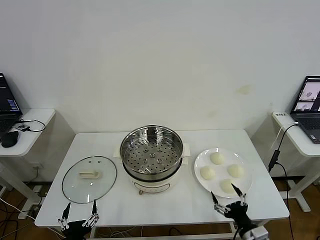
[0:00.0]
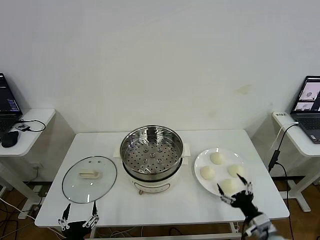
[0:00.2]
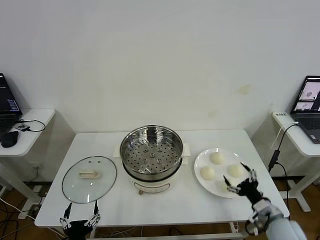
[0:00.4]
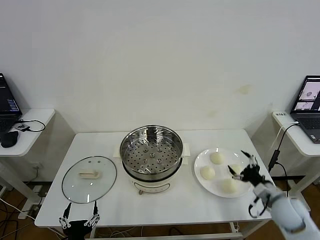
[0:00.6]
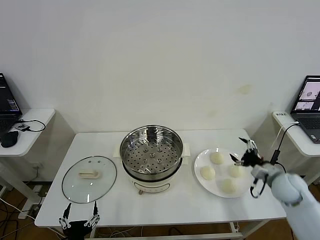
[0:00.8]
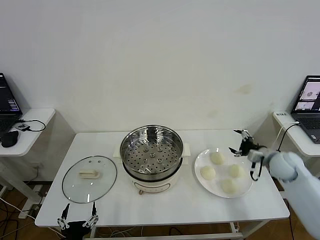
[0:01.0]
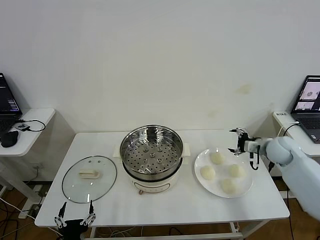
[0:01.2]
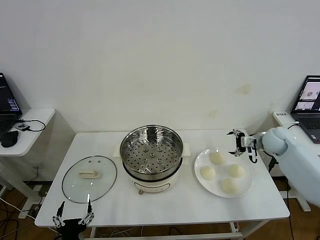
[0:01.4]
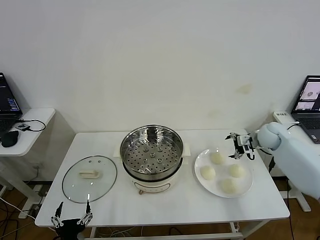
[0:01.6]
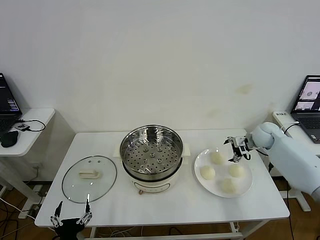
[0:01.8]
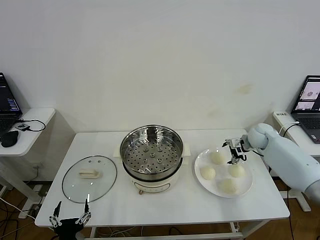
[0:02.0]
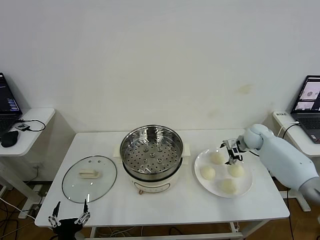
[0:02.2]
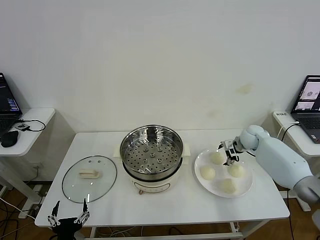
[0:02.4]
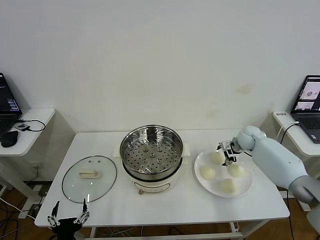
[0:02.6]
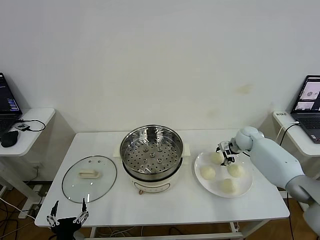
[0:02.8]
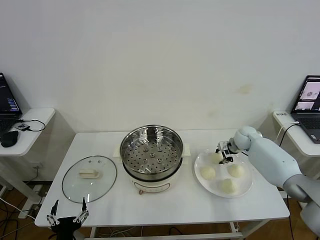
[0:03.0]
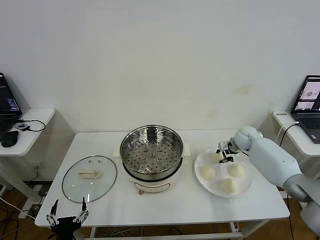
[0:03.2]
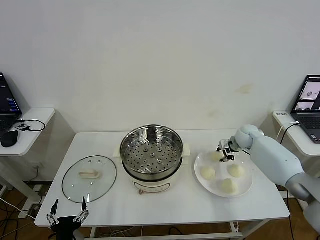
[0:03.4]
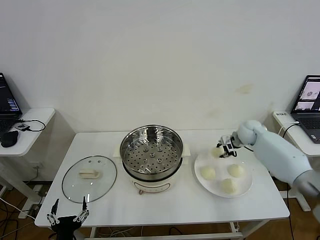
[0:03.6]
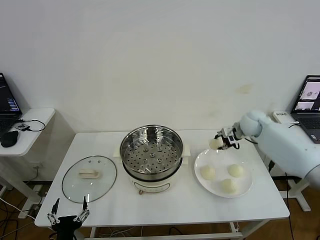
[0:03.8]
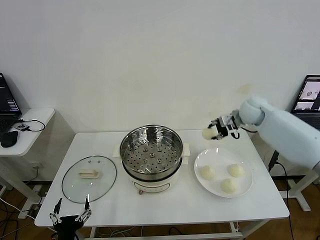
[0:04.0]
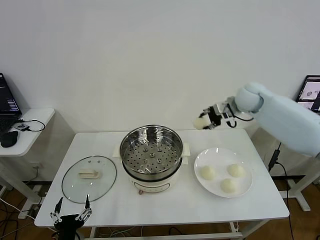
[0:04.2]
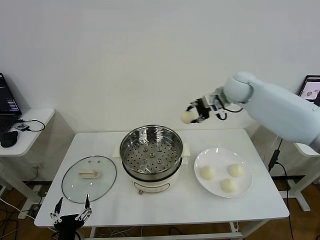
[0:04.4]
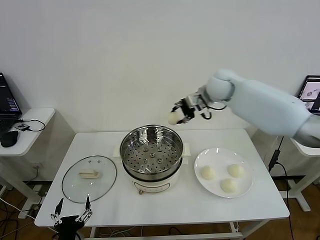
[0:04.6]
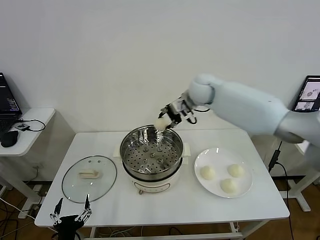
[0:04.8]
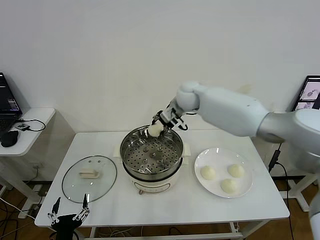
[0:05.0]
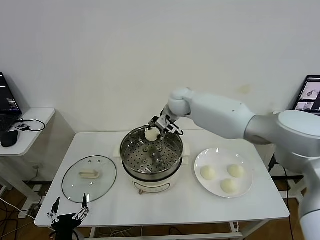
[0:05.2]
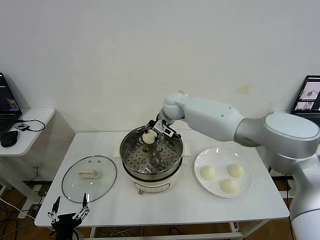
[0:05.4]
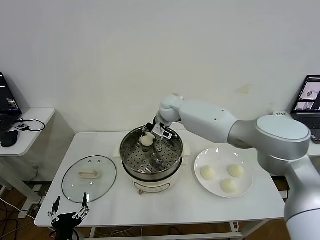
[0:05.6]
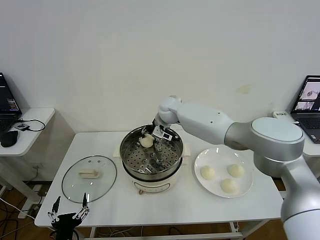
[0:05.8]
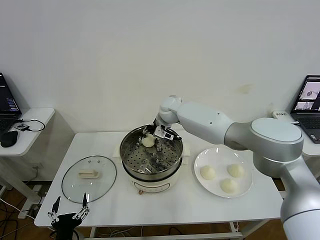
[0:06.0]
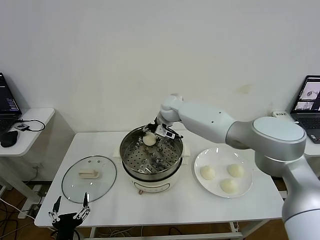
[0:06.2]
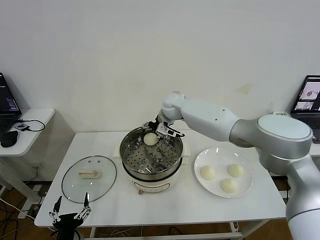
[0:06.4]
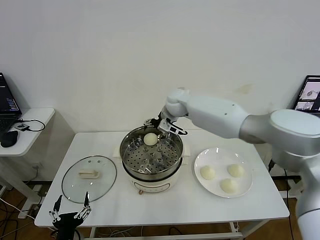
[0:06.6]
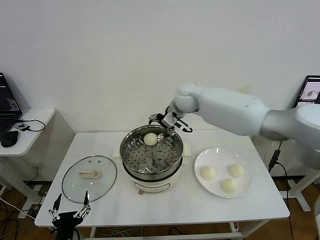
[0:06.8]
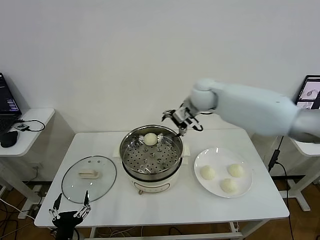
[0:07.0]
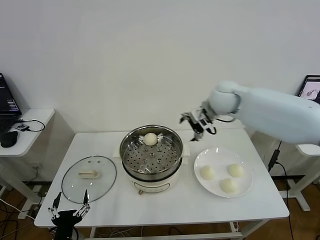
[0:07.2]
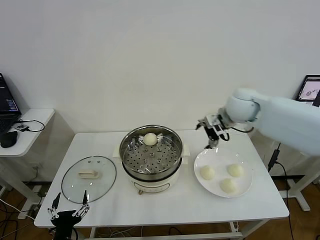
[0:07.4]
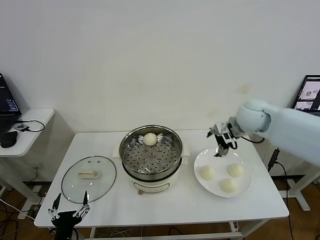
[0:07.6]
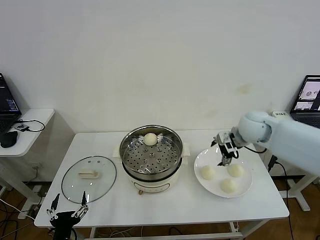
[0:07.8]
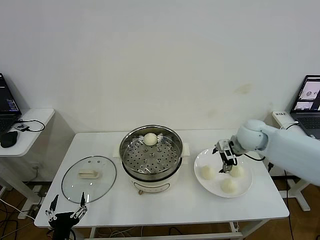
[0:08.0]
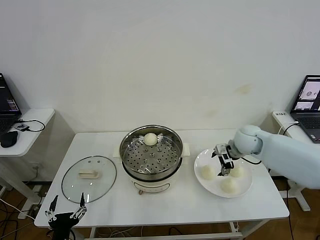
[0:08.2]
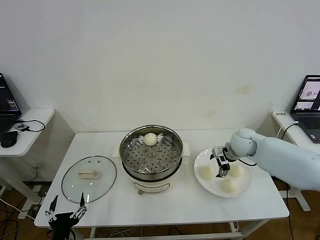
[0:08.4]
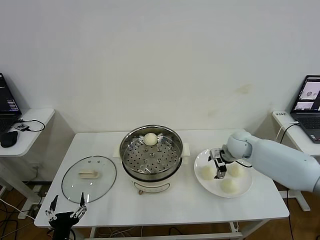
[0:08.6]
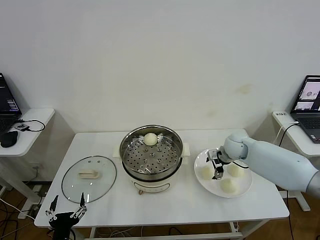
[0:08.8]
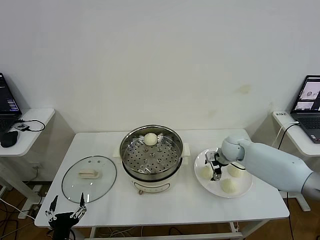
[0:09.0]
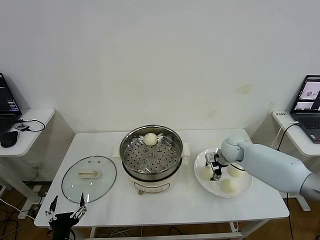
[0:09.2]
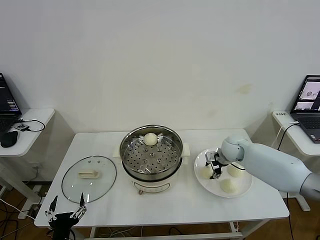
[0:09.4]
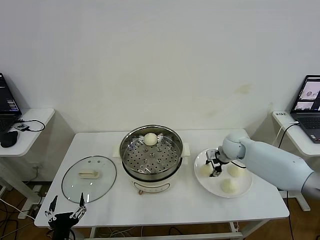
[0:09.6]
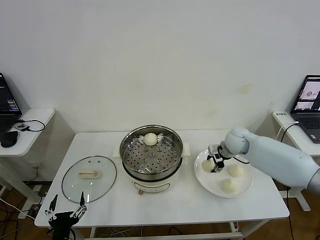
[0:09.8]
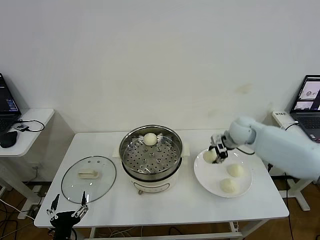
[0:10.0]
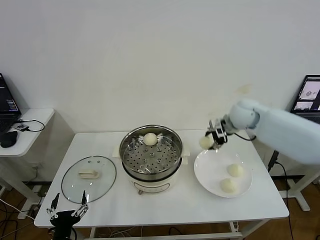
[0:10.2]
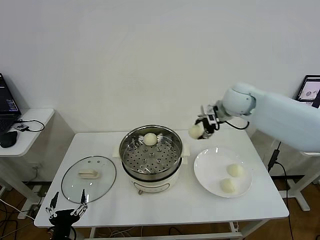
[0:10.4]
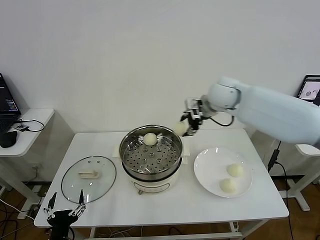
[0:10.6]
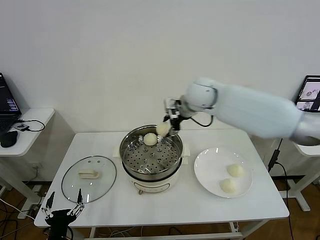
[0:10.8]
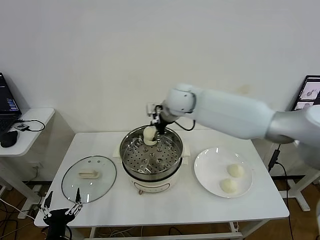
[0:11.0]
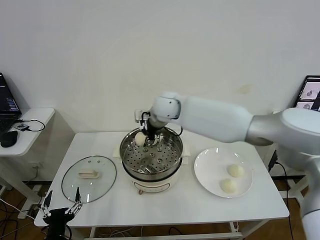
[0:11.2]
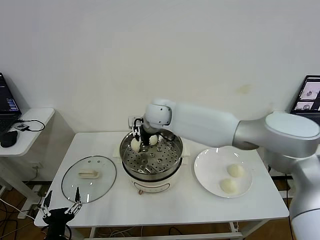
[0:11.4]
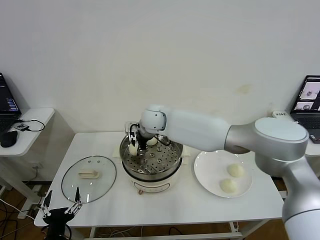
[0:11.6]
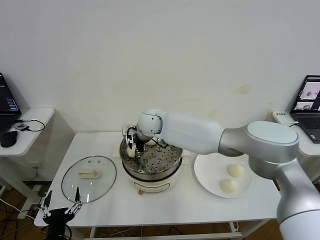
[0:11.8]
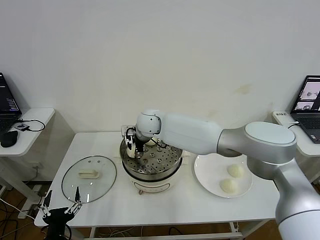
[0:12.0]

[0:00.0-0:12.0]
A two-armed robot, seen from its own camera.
Step, 0:00.0 to 0:03.0: Grasp the baozi in the plate with right gripper.
Step, 0:03.2 to 0:06.2: Place the baozi on the steamer with right gripper.
Step, 0:06.4 to 0:09.4: Grasp the baozi in the plate with right gripper.
Step, 0:09.6 to 0:12.0: Place the baozi on the steamer with right gripper.
0:01.6 to 0:03.0: The right gripper is displaced downward and to the left by approximately 10 cm, and closes.
0:03.0 to 0:04.4: The right gripper heads upward and to the left, covering some 30 cm.
0:04.4 to 0:06.0: The right gripper is displaced to the left and downward by about 20 cm.
0:06.0 to 0:07.6: The right gripper heads to the right and backward, covering about 25 cm, and opens up.
0:07.6 to 0:09.0: The right gripper shifts approximately 15 cm downward.
0:09.0 to 0:10.4: The right gripper moves upward, approximately 20 cm, and closes.
0:10.4 to 0:12.0: The right gripper shifts about 30 cm to the left and downward, and opens.

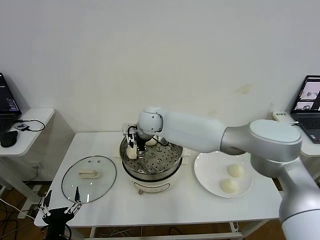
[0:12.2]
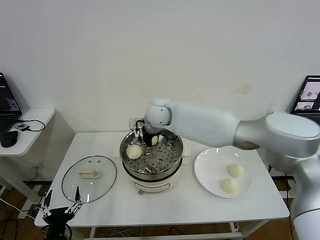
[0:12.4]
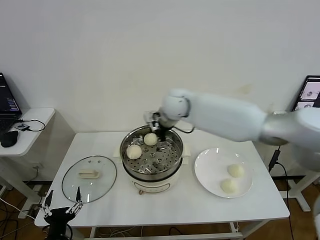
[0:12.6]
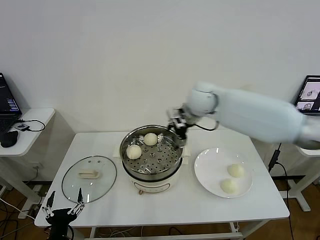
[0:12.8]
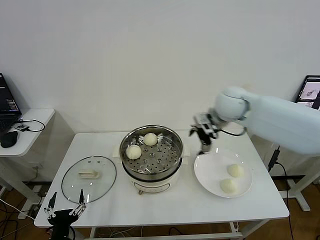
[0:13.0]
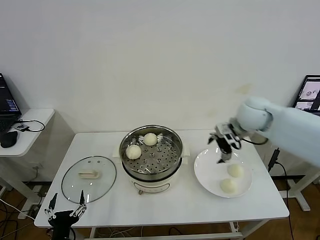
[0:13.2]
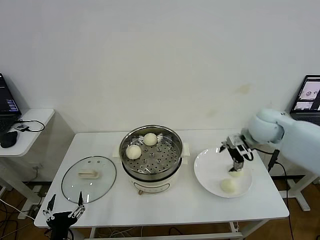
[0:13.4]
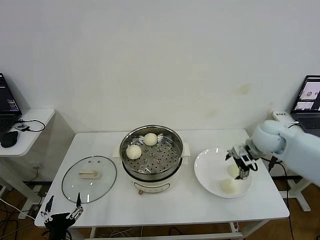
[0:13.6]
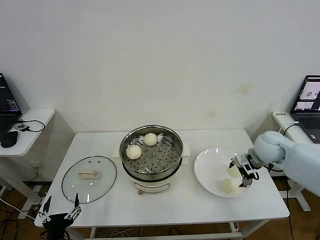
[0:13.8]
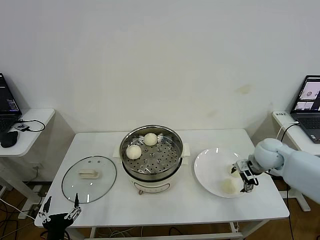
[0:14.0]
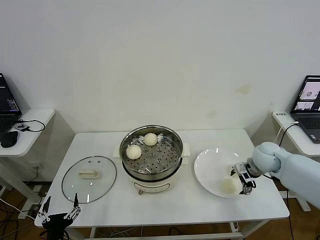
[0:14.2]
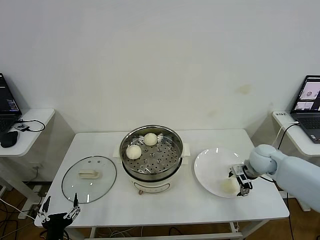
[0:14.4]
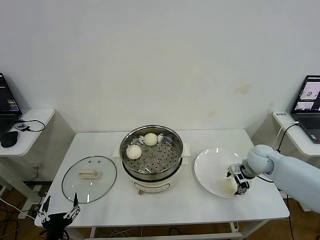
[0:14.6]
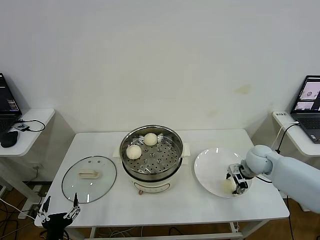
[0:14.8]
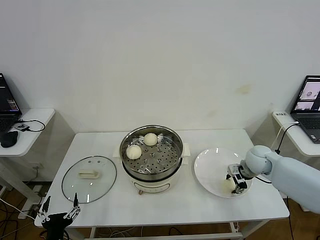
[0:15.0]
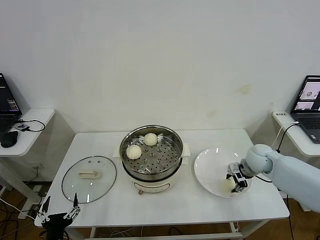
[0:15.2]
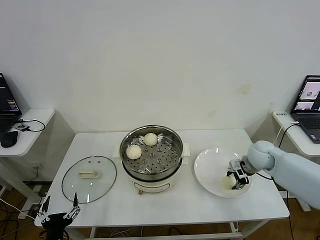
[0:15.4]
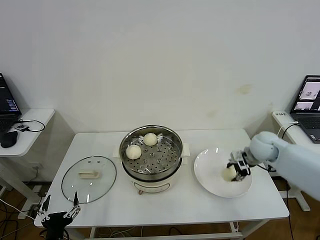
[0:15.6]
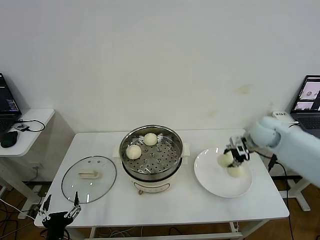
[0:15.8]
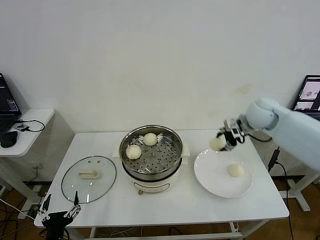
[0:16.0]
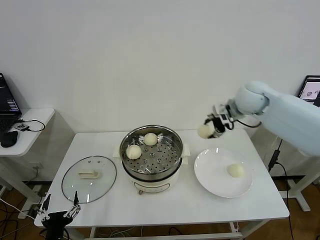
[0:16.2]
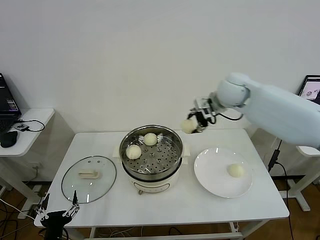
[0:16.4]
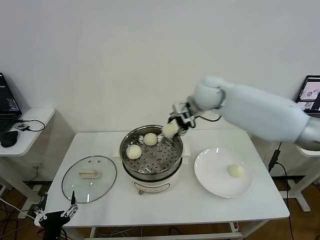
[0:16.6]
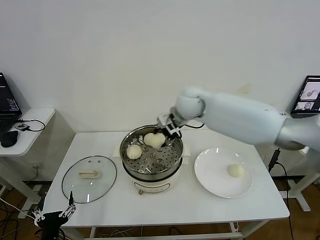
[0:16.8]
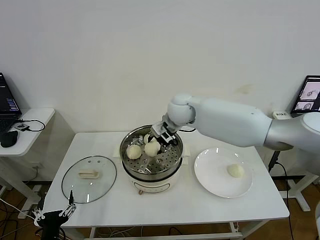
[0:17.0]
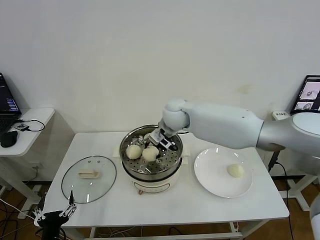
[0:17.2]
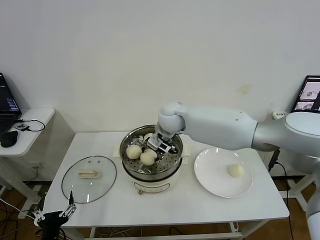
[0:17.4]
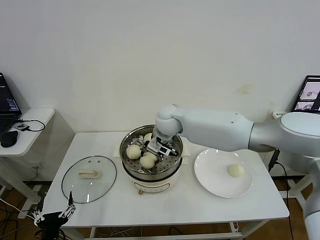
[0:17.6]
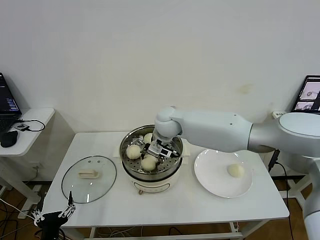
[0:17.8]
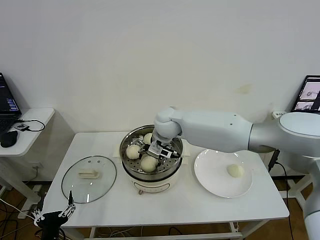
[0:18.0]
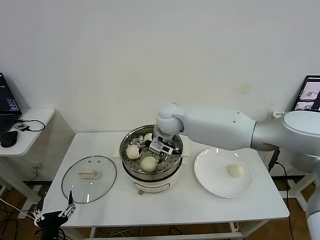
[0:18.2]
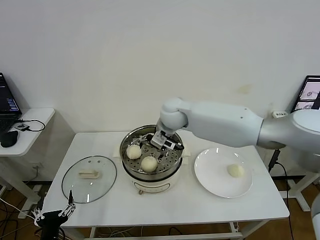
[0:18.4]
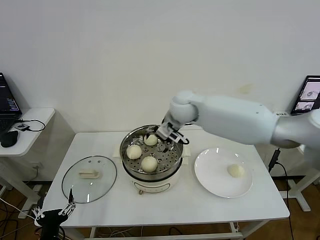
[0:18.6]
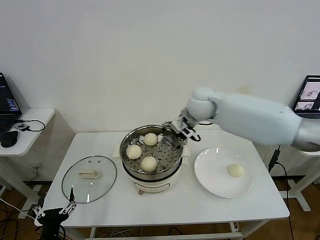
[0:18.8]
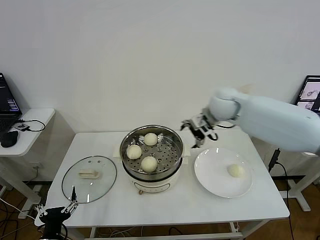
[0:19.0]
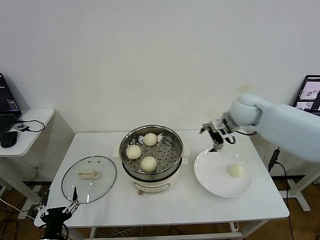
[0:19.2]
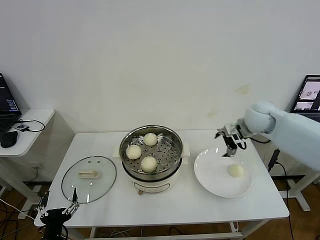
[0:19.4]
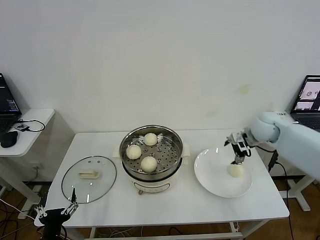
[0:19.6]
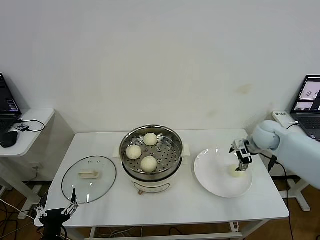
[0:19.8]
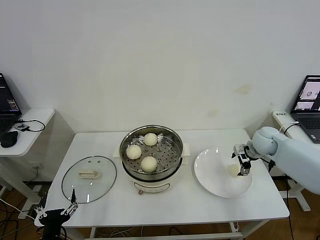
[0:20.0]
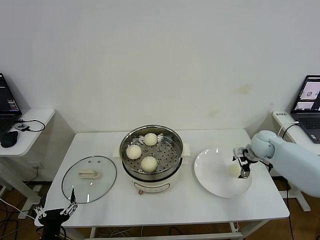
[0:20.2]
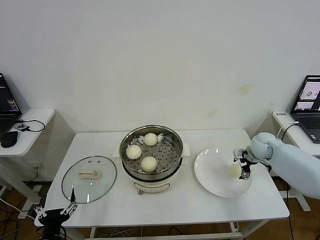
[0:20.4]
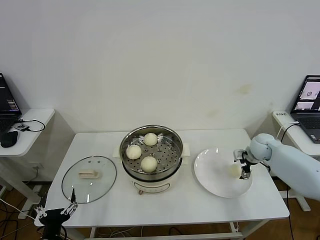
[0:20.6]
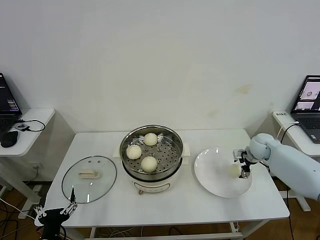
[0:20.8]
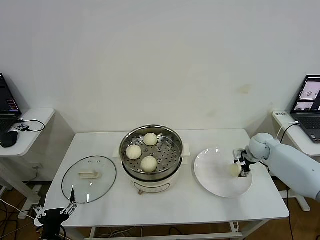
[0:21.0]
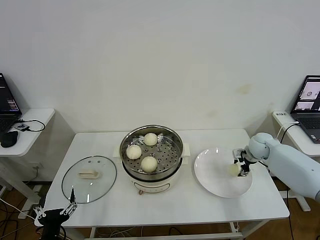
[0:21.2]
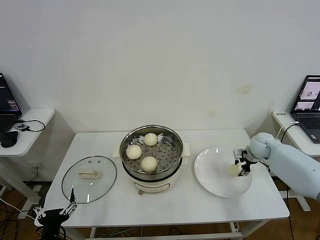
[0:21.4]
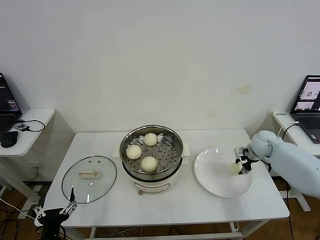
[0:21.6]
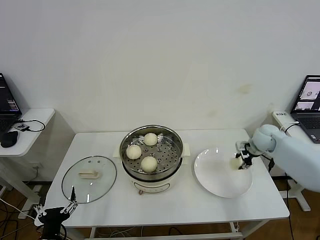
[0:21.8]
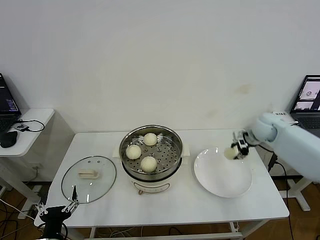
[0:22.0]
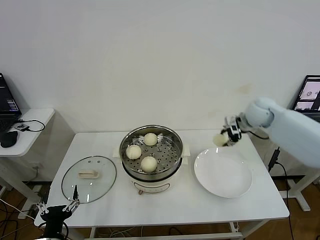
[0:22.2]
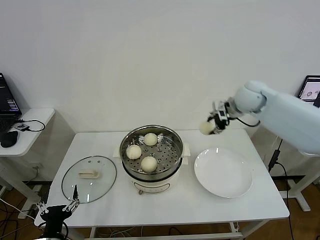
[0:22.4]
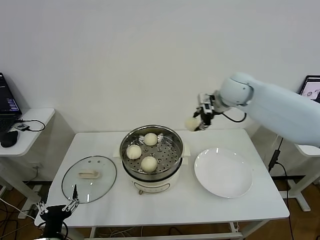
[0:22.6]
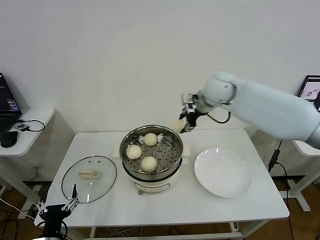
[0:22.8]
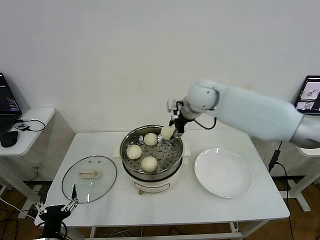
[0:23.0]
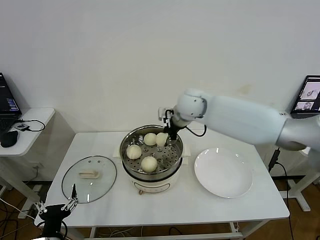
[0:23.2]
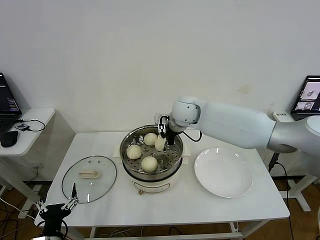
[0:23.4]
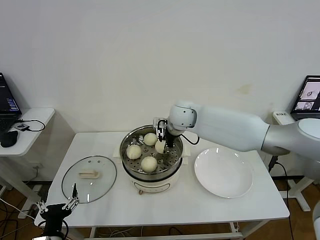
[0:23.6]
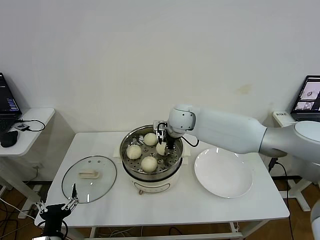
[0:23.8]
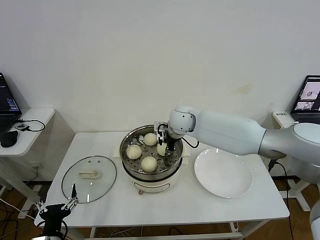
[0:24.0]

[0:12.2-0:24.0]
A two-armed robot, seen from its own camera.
Step, 0:12.2 to 0:14.8: Grasp the baozi in the plate with right gripper.
Step, 0:15.0 to 0:18.0: Place the baozi on the steamer with right gripper.
Step, 0:18.2 to 0:21.2: Grasp the baozi in the plate with right gripper.
0:12.2 to 0:13.6: The right gripper goes approximately 35 cm to the right.
0:13.6 to 0:15.2: The right gripper goes approximately 10 cm downward, and closes its fingers.
0:15.2 to 0:16.6: The right gripper goes some 30 cm to the left and upward.
0:16.6 to 0:18.2: The right gripper travels to the left and downward by some 15 cm, and opens.
0:18.2 to 0:19.6: The right gripper shifts roughly 35 cm to the right.
0:19.6 to 0:21.0: The right gripper moves downward, approximately 10 cm, and closes up.
0:21.0 to 0:22.6: The right gripper moves upward and to the left, approximately 30 cm, and closes up.
0:22.6 to 0:24.0: The right gripper moves to the left and downward, about 20 cm.
